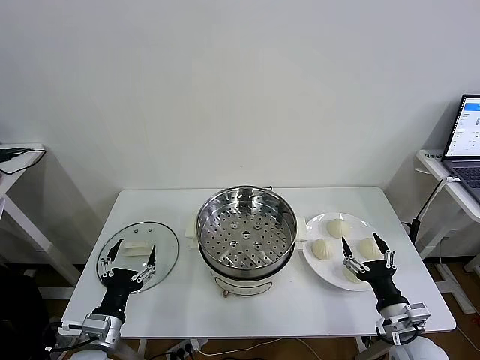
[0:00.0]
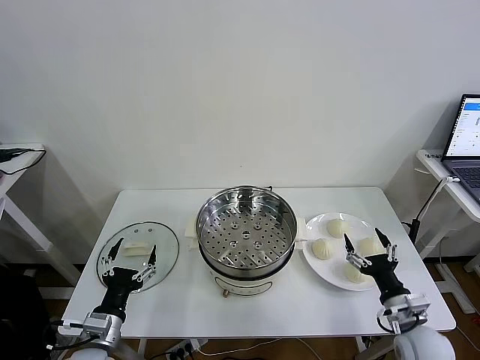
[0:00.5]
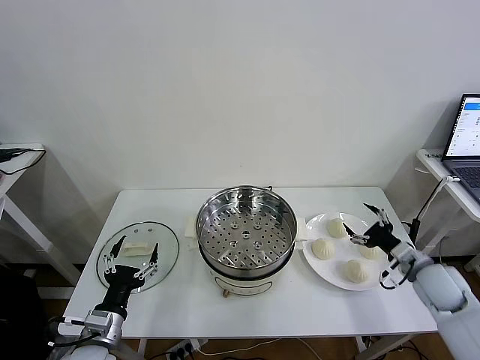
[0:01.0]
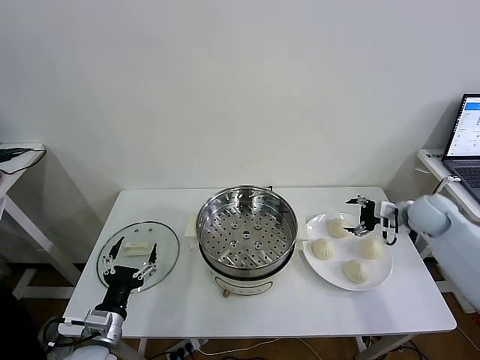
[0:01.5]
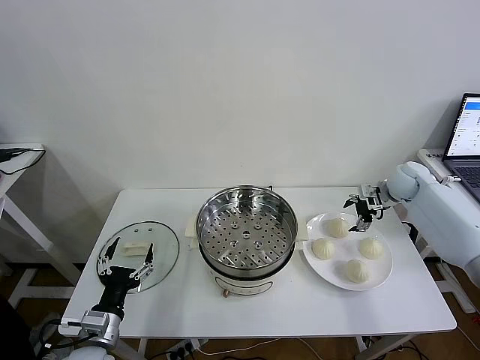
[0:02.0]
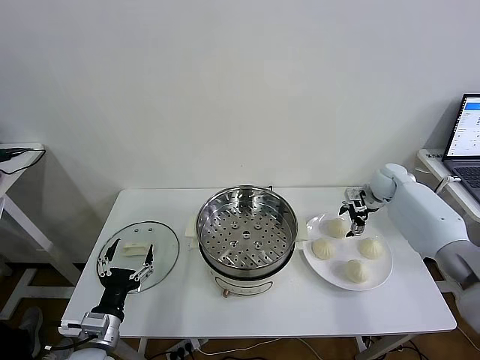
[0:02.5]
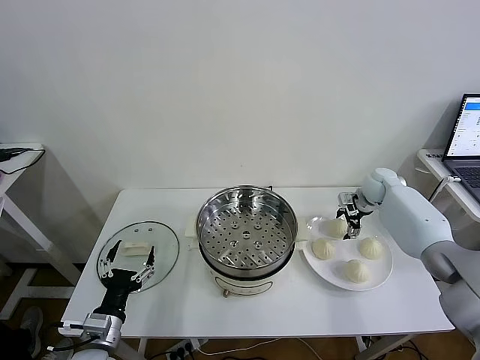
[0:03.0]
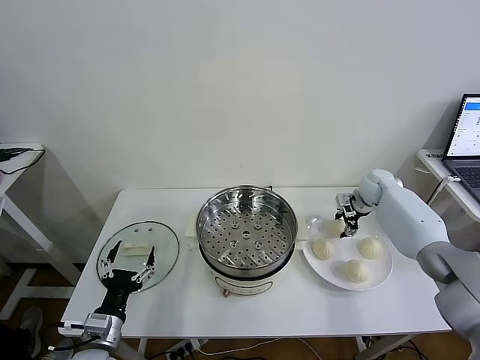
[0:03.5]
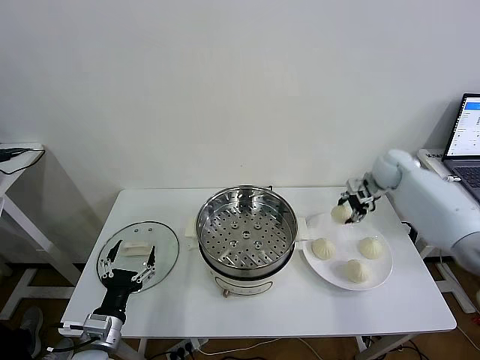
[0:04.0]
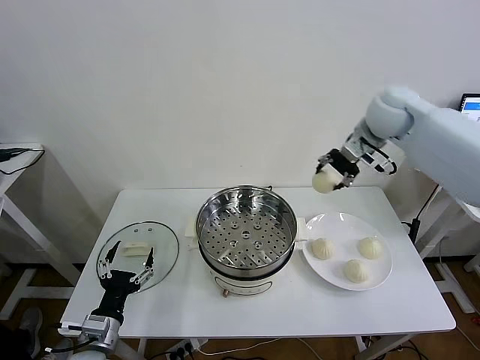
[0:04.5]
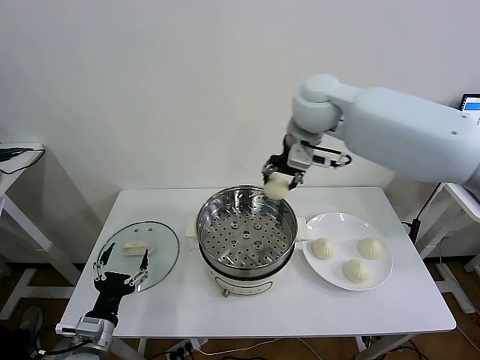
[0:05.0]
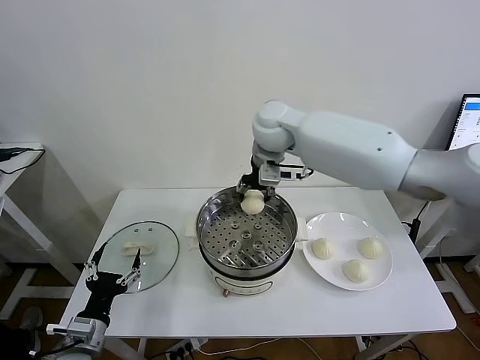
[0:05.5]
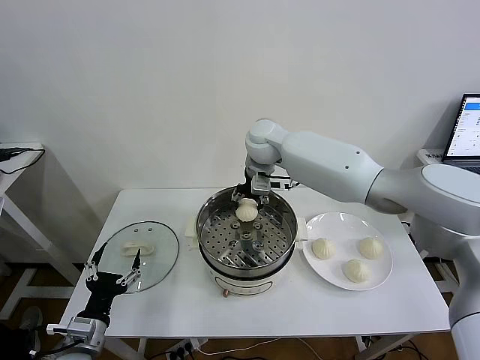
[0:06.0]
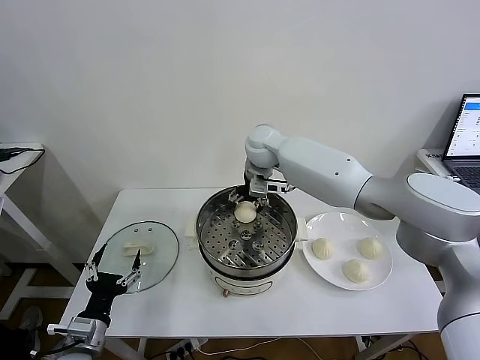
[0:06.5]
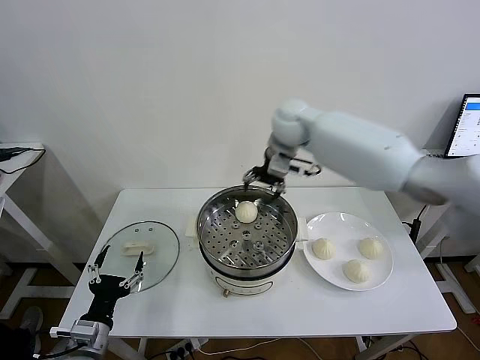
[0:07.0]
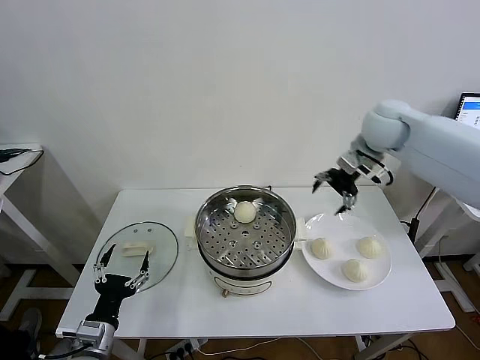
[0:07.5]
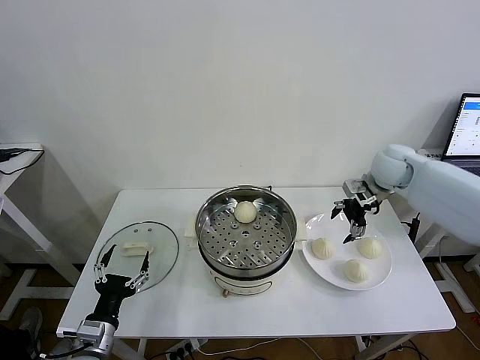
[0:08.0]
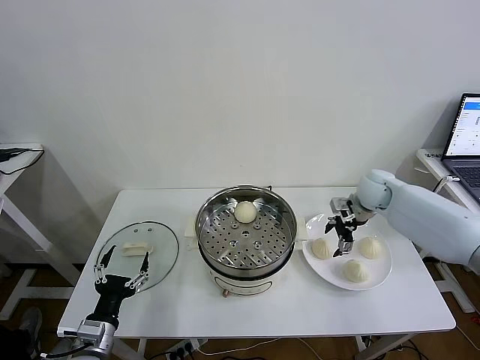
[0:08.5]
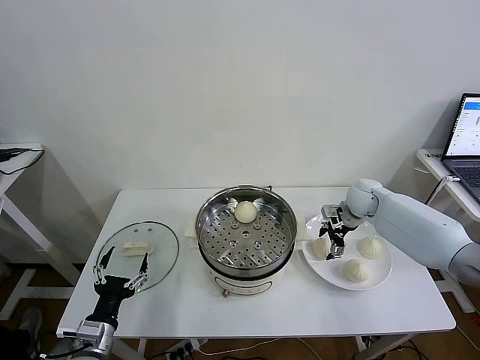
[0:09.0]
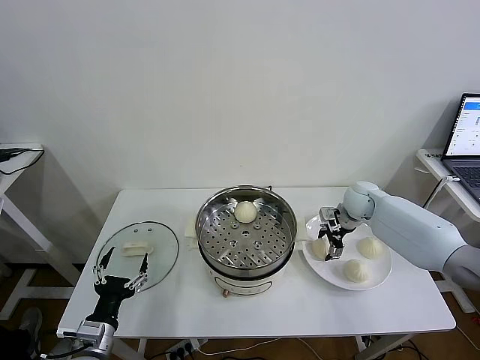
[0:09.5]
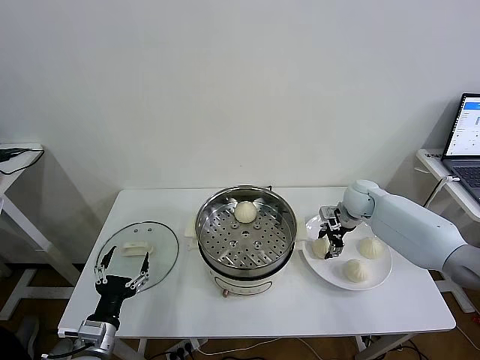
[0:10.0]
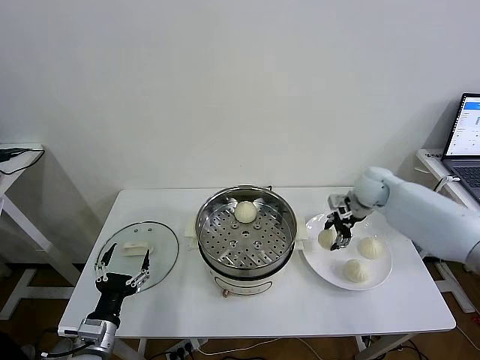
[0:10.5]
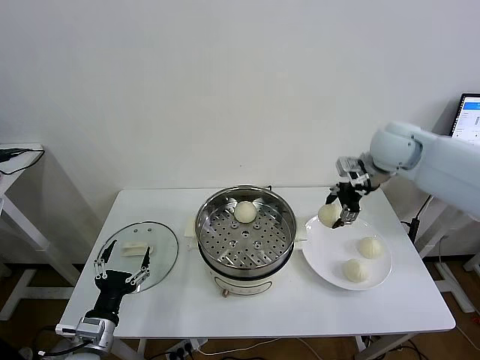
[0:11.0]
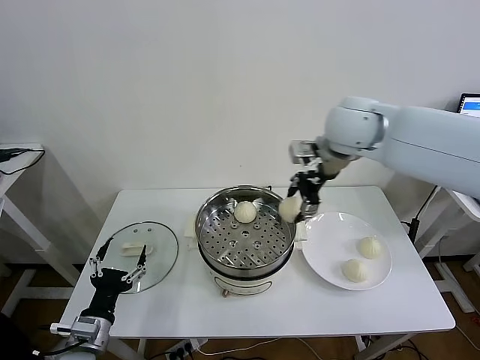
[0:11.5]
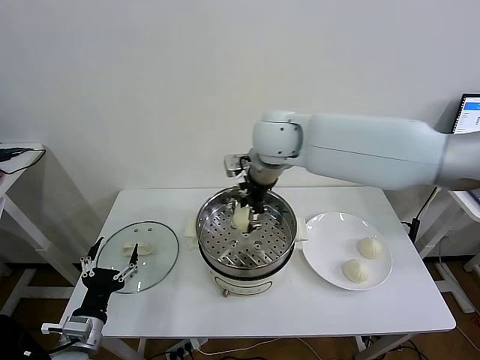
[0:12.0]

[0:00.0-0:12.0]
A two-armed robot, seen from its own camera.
Task of the whole recording: take steamed baozi put them in steamer then cover it.
Step, 0.0 to 3.0 s: Grasp the baozi in the plate with right gripper.
Step, 3.5 to 6.5 s: Place the baozi on the steamer with right gripper.
Step, 7.0 to 9.5 s: Grasp the baozi in the plate with right gripper.
2.0 to 4.0 s: The right gripper shifts approximately 5 cm upward, and closes up.
4.0 to 6.0 s: The right gripper travels to the left by roughly 35 cm.
6.0 to 8.0 s: The right gripper is displaced to the right by some 30 cm, and opens its fingers.
8.0 to 10.0 s: The right gripper travels downward by about 10 cm, and closes its fingers.
10.0 to 12.0 s: The right gripper is displaced to the left and upward by roughly 35 cm.

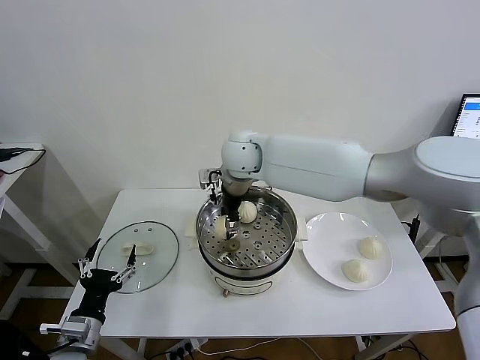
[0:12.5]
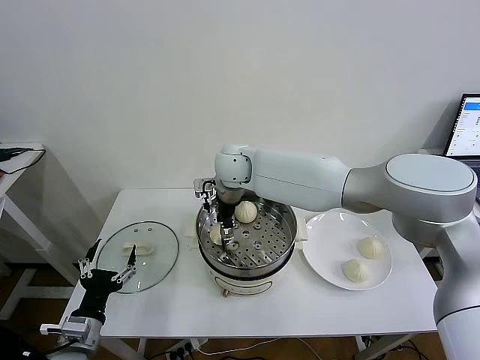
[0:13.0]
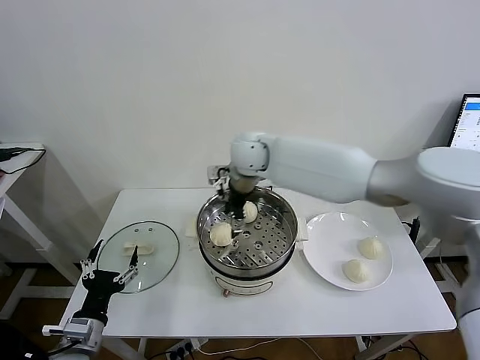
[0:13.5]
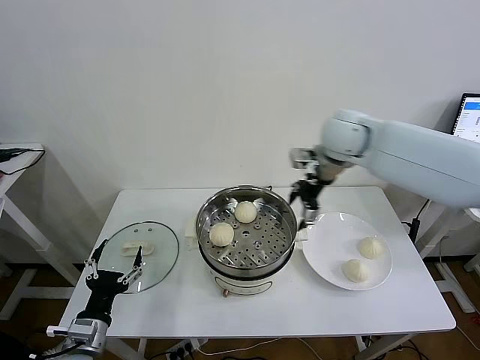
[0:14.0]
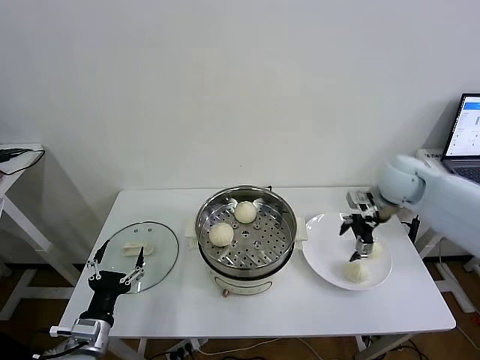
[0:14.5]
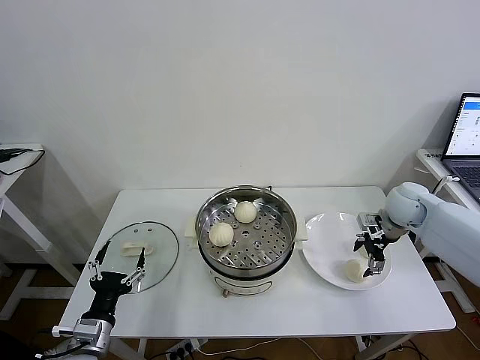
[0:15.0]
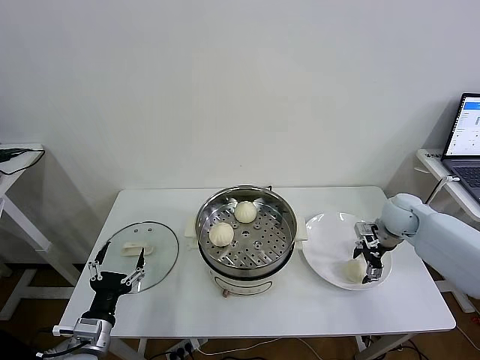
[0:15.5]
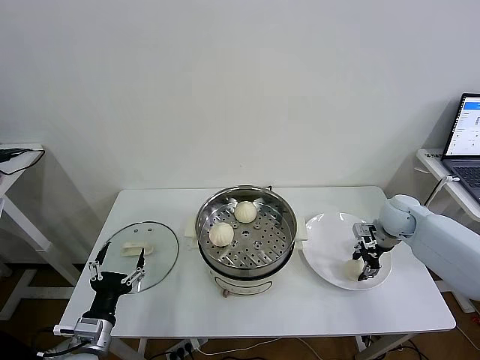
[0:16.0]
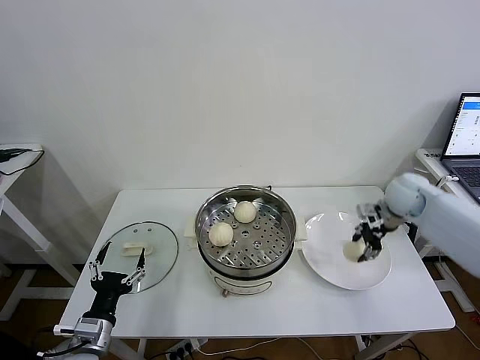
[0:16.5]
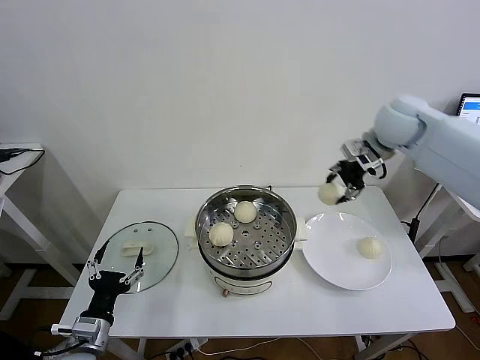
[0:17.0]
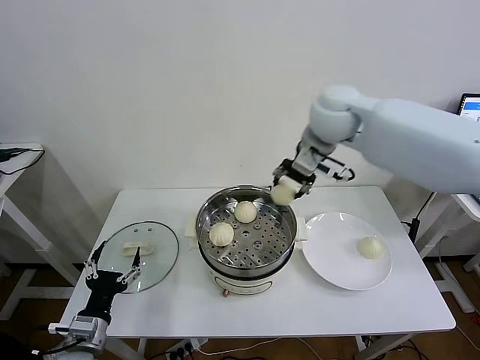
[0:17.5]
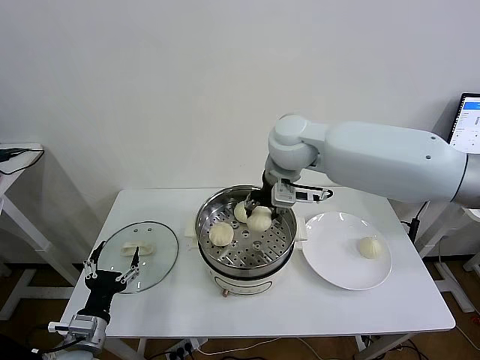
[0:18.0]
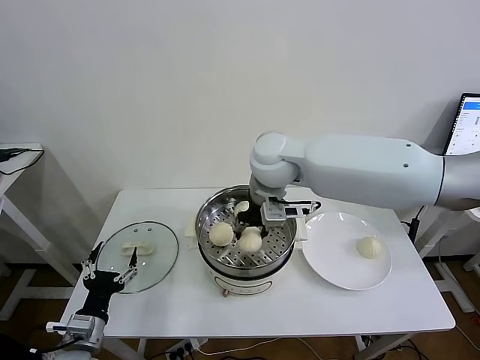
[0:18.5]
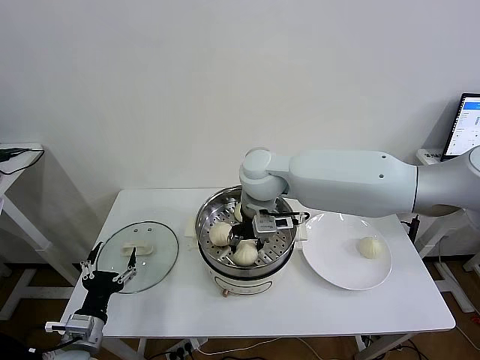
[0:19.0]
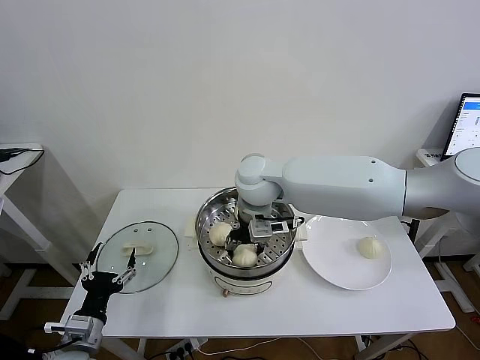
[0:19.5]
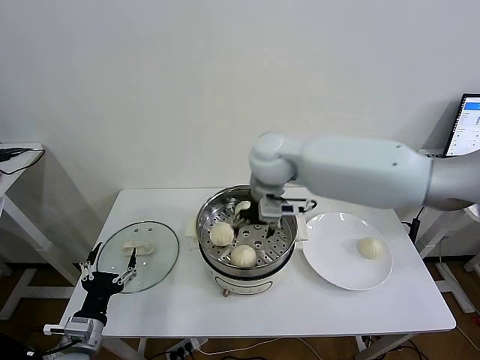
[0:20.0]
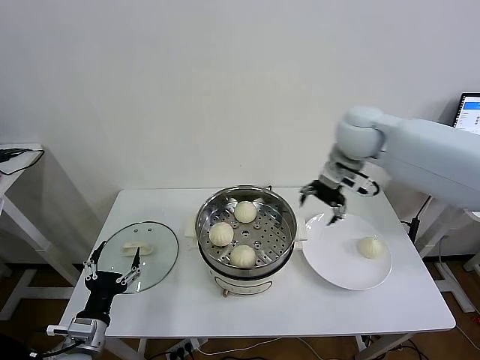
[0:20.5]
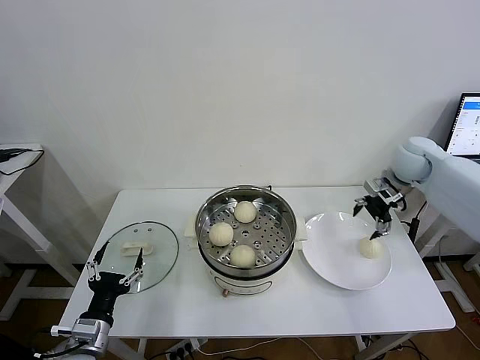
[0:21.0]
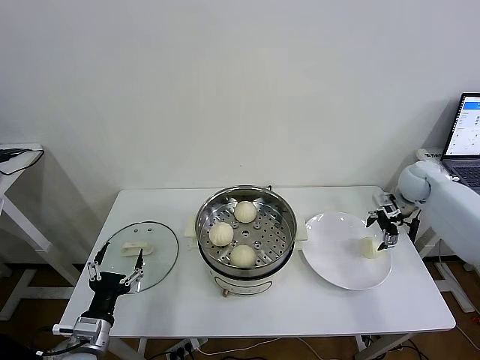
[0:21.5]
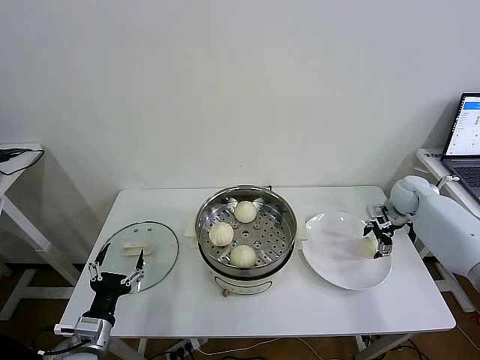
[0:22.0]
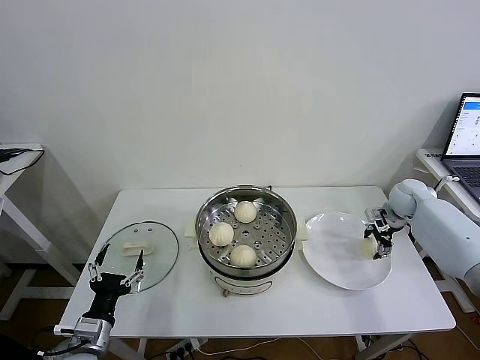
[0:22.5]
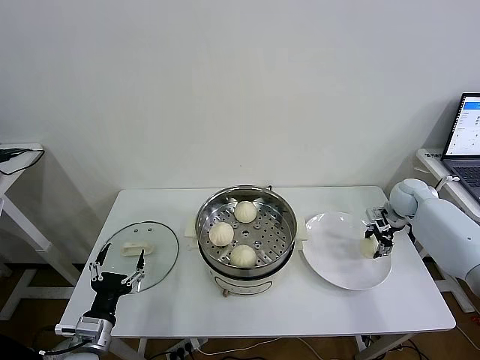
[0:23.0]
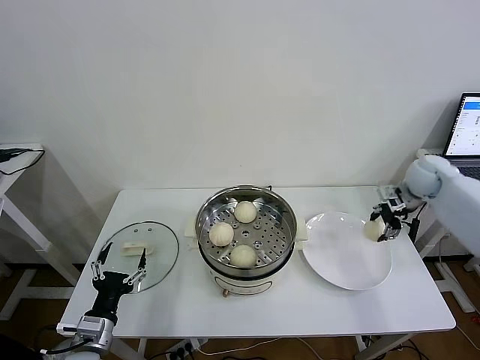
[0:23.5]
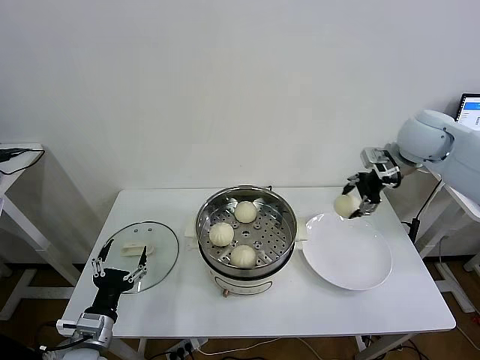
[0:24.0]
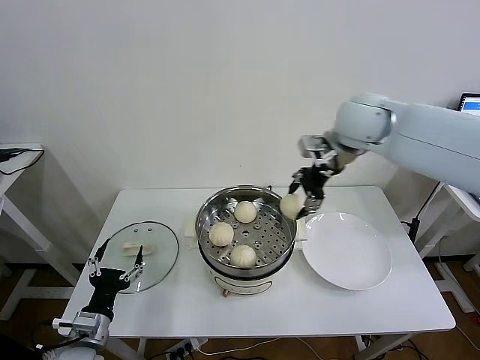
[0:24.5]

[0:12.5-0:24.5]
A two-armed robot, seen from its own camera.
Task of the whole recording: take steamed baozi put them in steamer then cover it.
Step, 13.5 to 16.0 s: Grasp the baozi in the plate with right gripper.
Step, 16.5 to 19.5 s: Place the baozi on the steamer with right gripper.
Step, 20.0 to 22.5 s: Grasp the baozi in the plate with right gripper.
12.5 to 14.5 s: The right gripper travels to the right by approximately 35 cm, and opens its fingers.
14.5 to 16.5 s: The right gripper moves approximately 10 cm downward and comes back, and closes up.
16.5 to 18.5 s: The right gripper moves to the left, roughly 35 cm.
18.5 to 20.5 s: The right gripper travels to the right by roughly 20 cm, and opens up.
20.5 to 22.5 s: The right gripper shifts approximately 30 cm downward and to the right.
22.5 to 24.5 s: The right gripper heads upward and to the left, covering roughly 35 cm, and closes up.

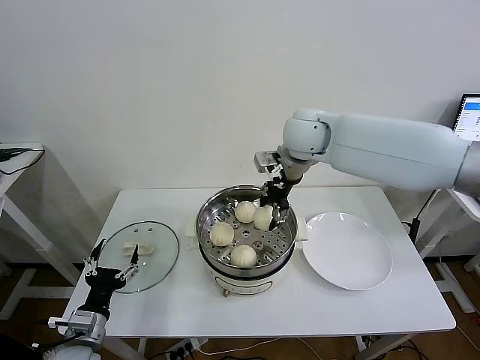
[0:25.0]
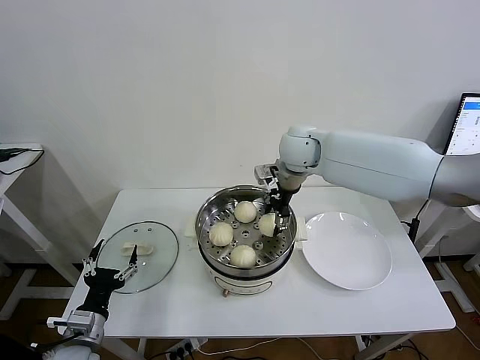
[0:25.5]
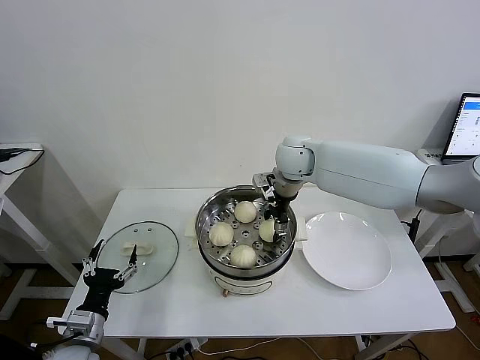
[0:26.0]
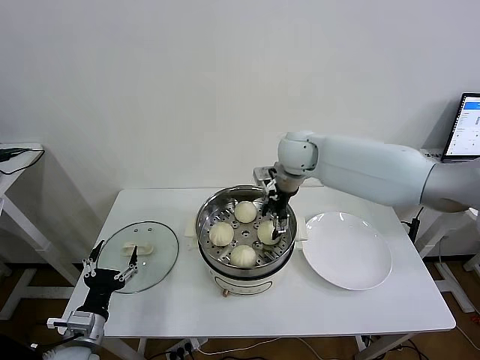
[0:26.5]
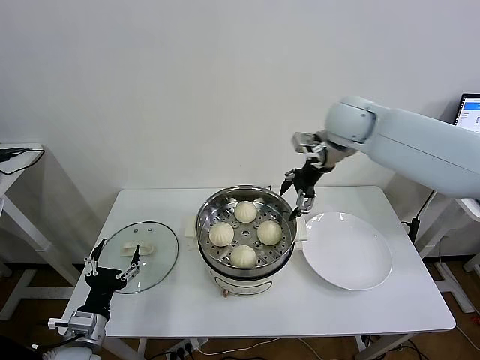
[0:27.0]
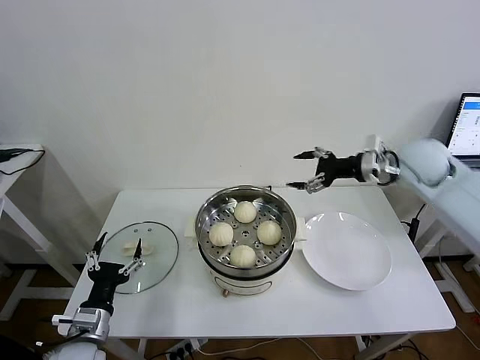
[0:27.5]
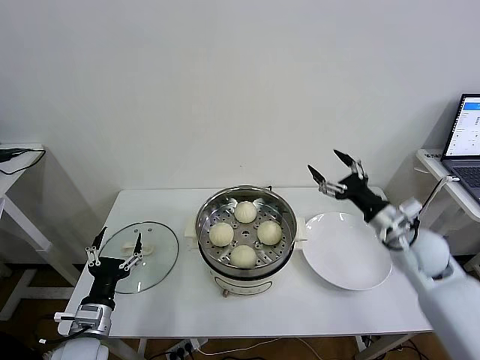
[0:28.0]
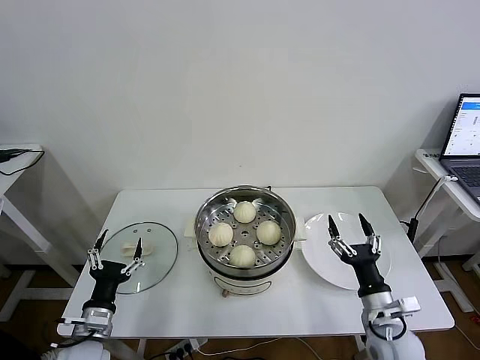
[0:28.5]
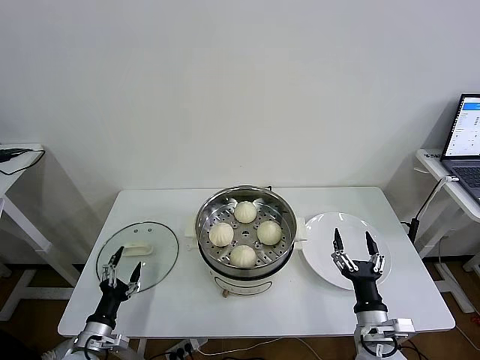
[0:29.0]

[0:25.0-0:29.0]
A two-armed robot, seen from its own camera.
Task of the whole recording: take steamed baozi put them in steamer then cover it.
25.0 to 27.0 s: The right gripper heads to the right, covering roughly 10 cm, and opens its fingers.
27.0 to 29.0 s: The left gripper travels downward by about 10 cm. The right gripper heads backward and downward, covering roughly 50 cm.
